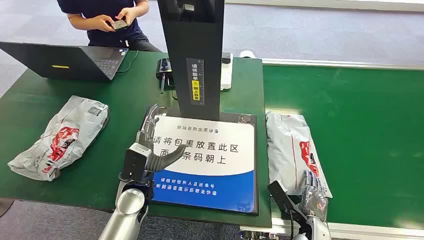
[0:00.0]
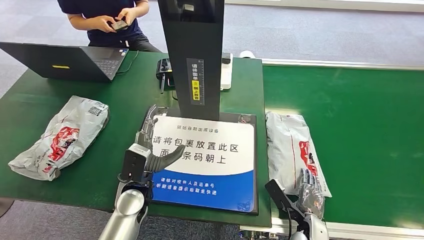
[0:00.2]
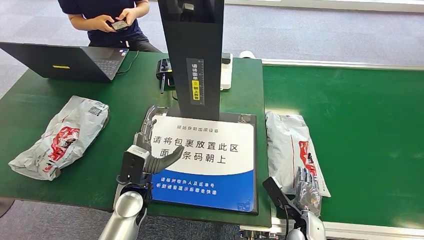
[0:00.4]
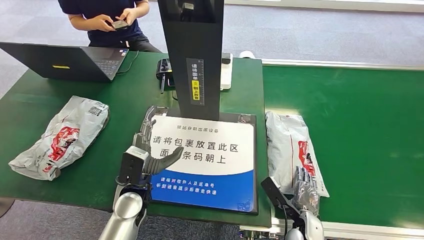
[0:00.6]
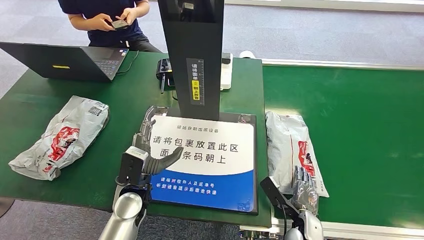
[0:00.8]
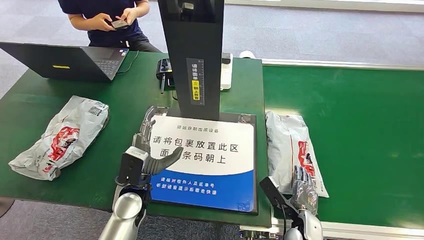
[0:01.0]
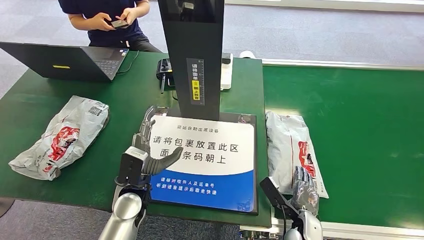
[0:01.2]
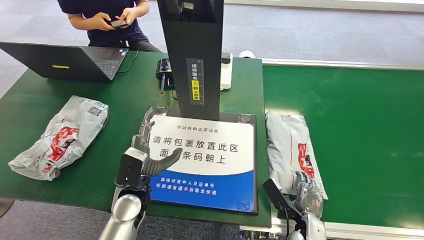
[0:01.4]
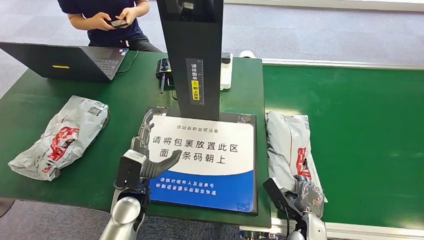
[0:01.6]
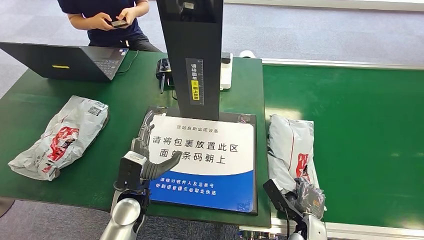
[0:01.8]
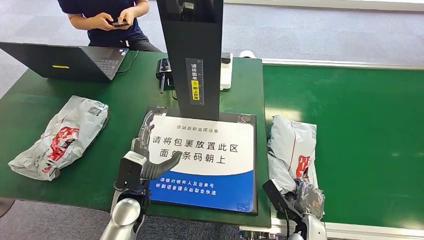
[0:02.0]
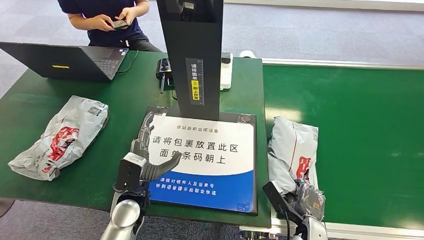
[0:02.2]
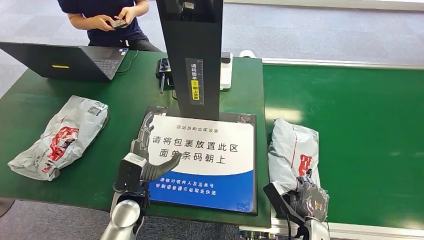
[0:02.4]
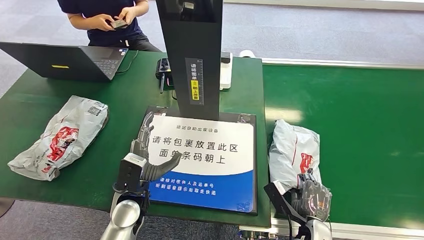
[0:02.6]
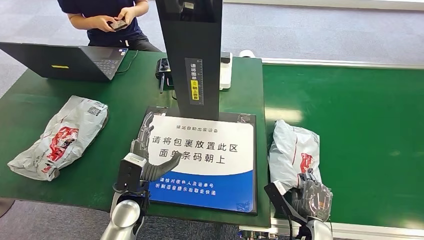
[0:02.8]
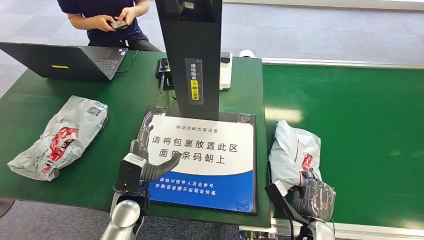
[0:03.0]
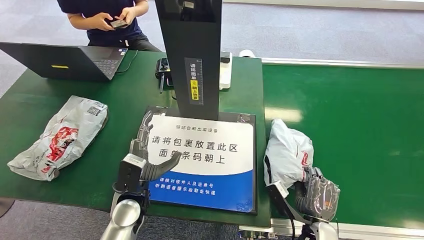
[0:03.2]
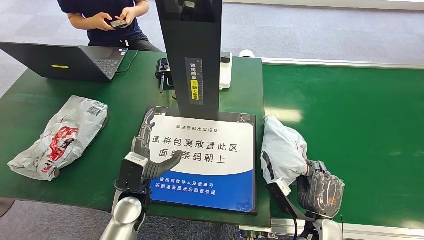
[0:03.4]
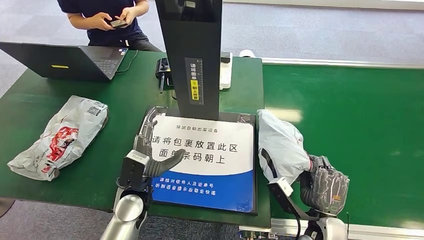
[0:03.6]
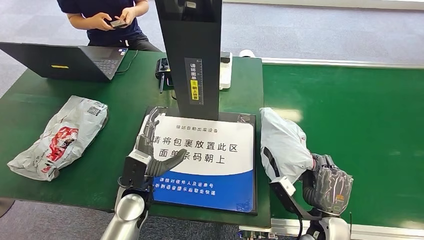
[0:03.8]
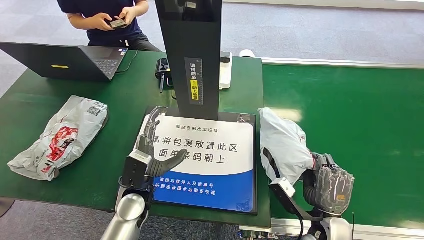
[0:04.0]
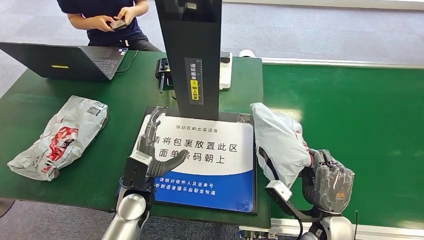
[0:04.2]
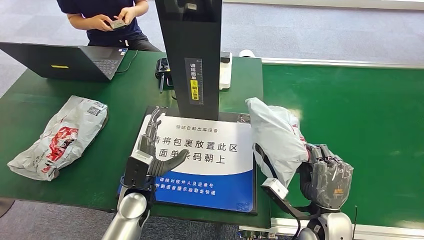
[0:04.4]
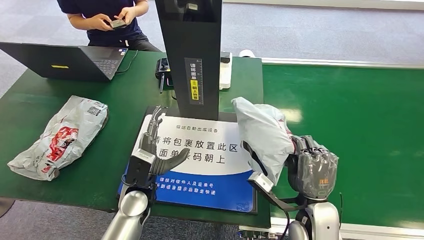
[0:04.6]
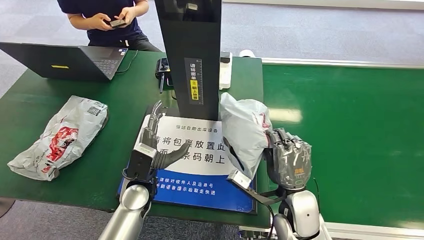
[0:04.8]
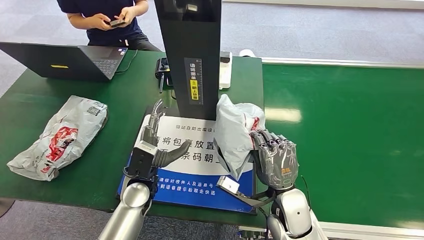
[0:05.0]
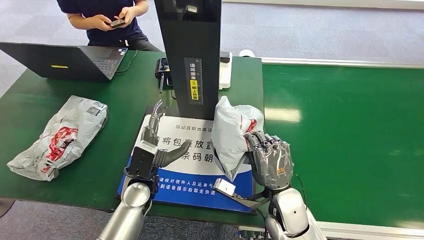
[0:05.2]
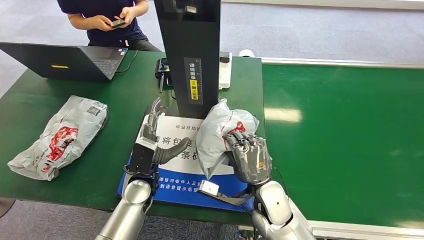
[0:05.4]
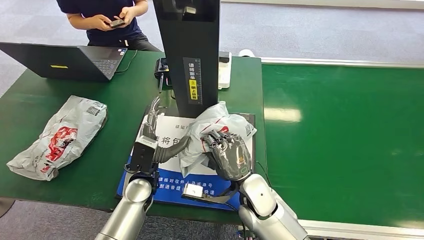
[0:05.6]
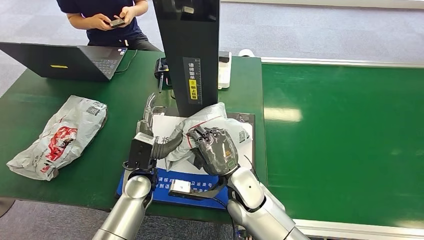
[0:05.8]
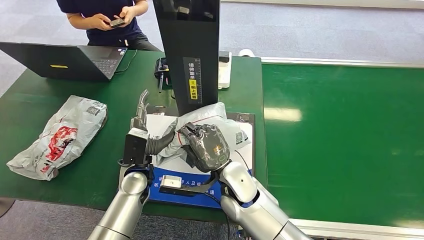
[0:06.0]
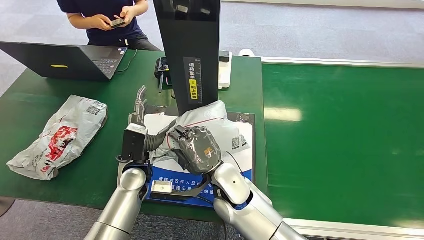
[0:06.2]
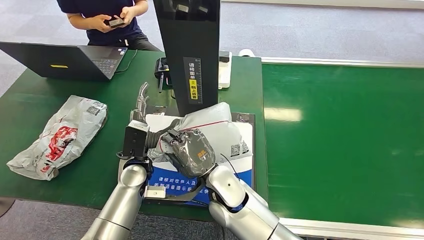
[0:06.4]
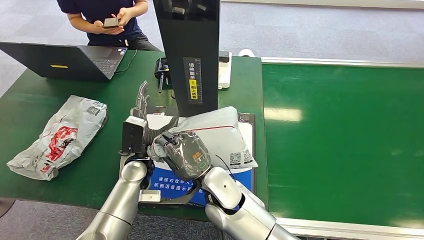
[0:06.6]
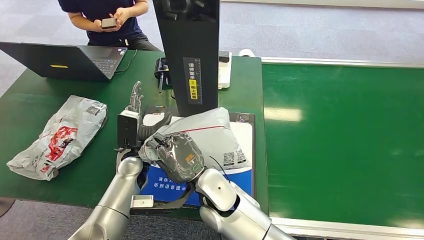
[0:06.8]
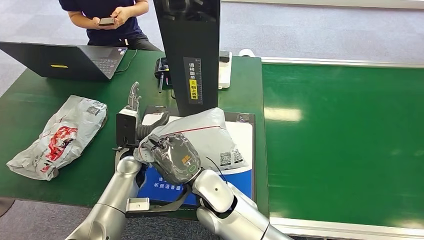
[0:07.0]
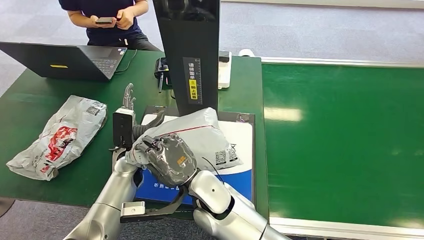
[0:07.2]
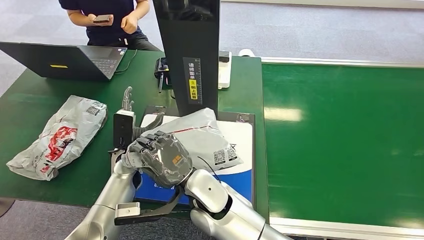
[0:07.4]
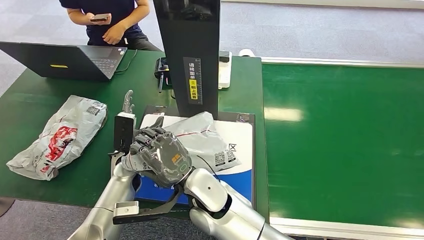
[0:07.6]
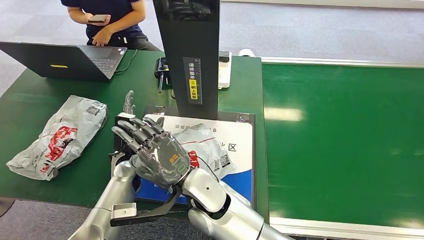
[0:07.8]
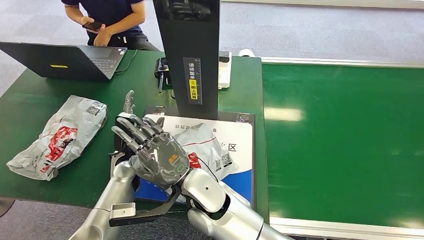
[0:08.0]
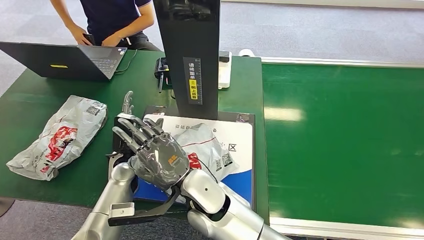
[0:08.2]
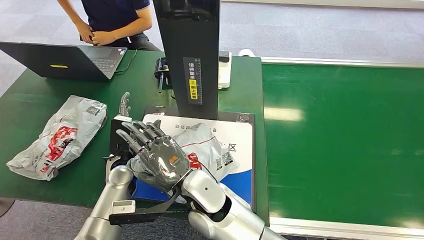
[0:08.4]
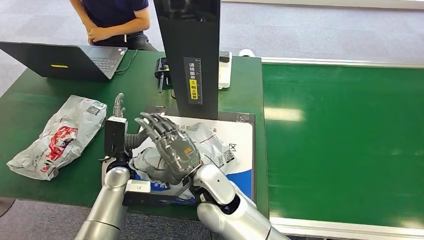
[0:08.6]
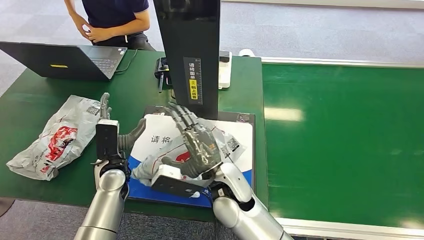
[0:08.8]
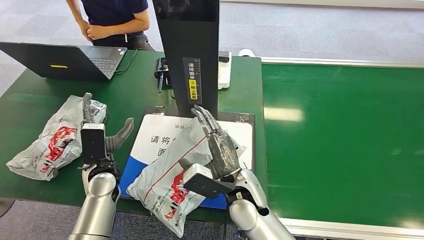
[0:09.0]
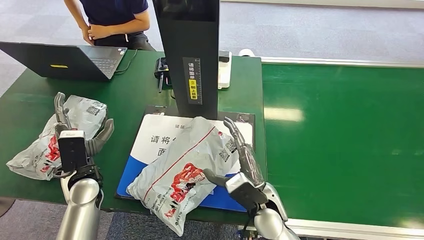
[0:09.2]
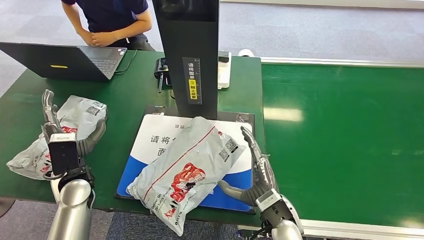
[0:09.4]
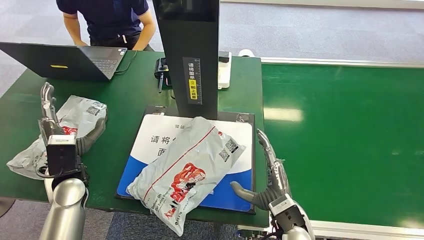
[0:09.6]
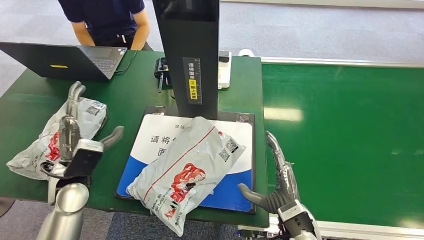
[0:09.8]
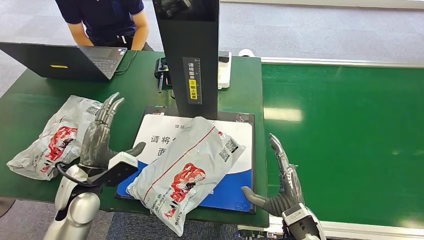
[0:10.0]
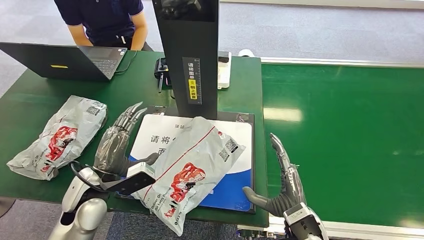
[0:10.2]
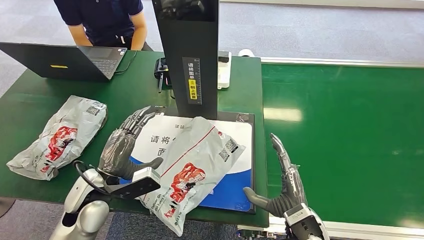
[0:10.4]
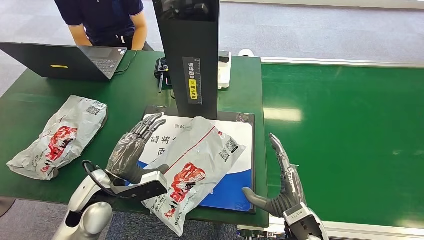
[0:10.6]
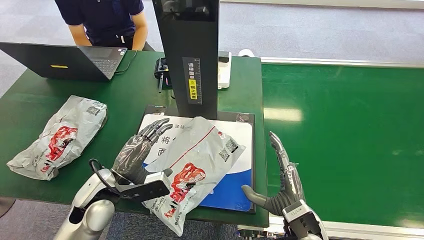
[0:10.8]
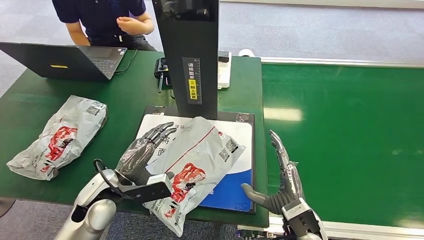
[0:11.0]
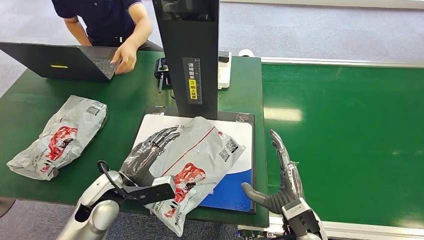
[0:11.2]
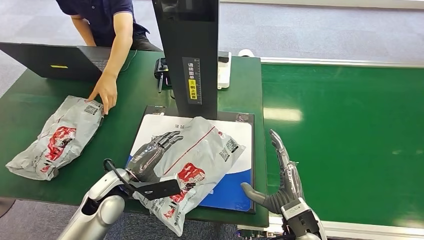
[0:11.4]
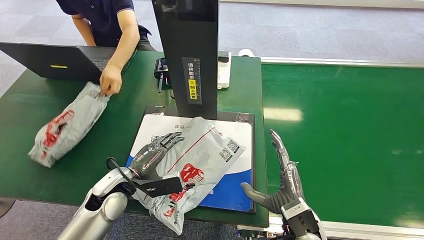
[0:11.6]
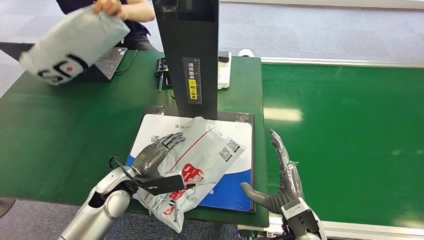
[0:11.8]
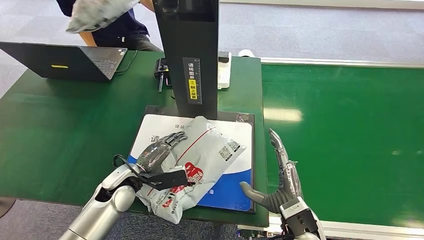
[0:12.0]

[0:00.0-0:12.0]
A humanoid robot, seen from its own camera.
Step, 0:00.0 to 0:03.6: Pick up the package from the conveyor belt.
Step, 0:03.8 to 0:09.8: Place the package onto the inbound machine.
0:01.6 to 0:03.0: There are only small adjustments of the hands.
0:03.0 to 0:04.4: The right hand goes some 10 cm upward.
0:06.0 to 0:07.6: The right hand is displaced to the left by some 5 cm; the left hand ends up about 5 cm from where it was.
0:09.0 to 0:10.4: The right hand moves to the right and backward, some 15 cm, while the left hand changes place by about 5 cm.

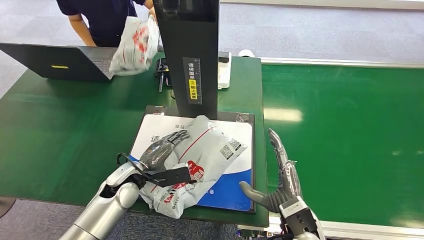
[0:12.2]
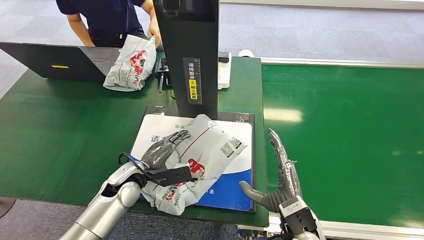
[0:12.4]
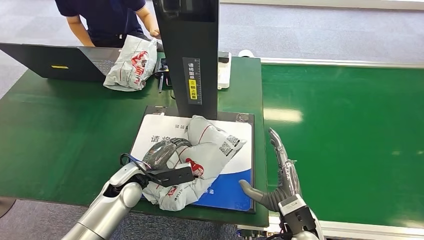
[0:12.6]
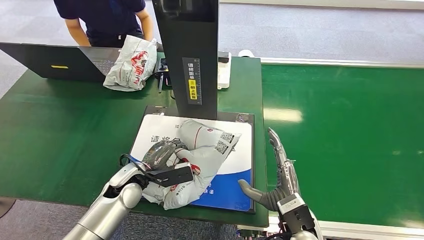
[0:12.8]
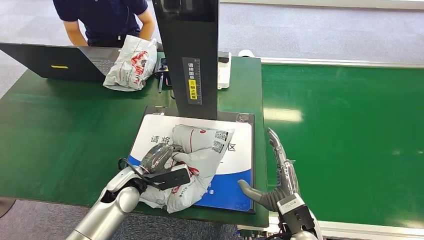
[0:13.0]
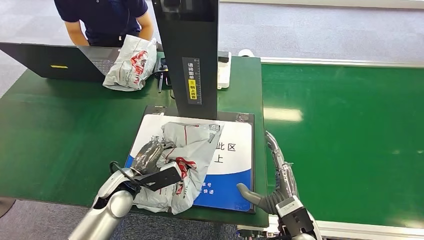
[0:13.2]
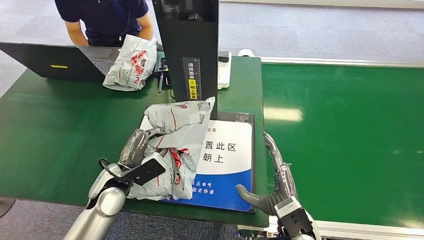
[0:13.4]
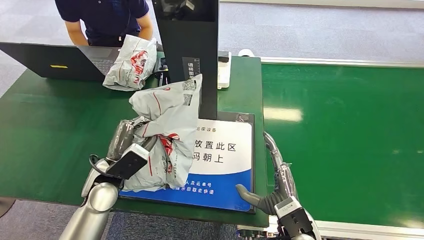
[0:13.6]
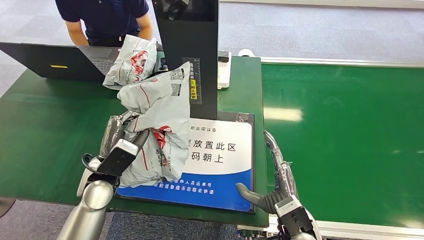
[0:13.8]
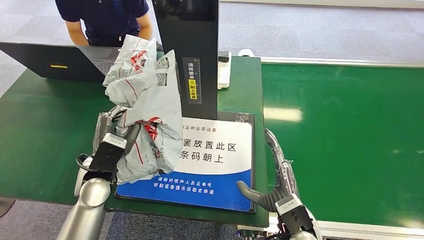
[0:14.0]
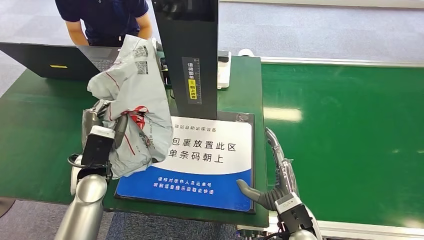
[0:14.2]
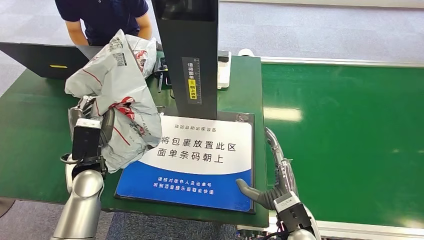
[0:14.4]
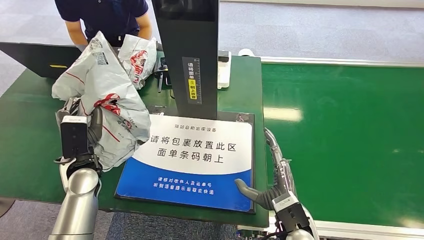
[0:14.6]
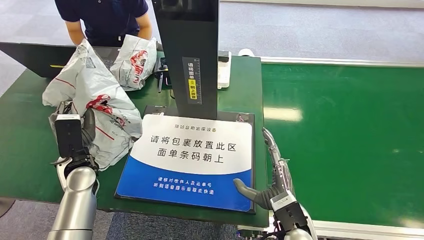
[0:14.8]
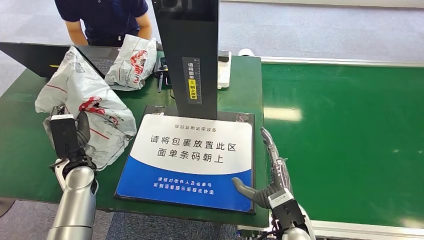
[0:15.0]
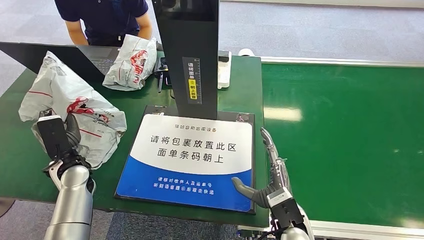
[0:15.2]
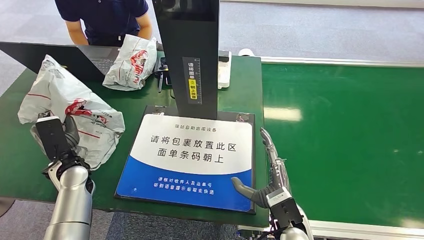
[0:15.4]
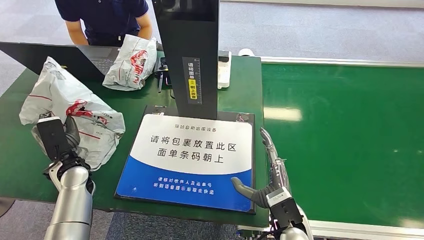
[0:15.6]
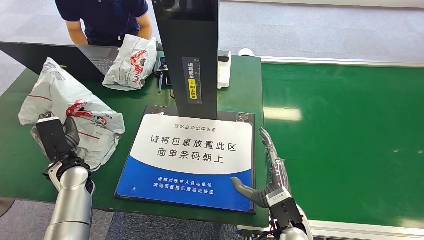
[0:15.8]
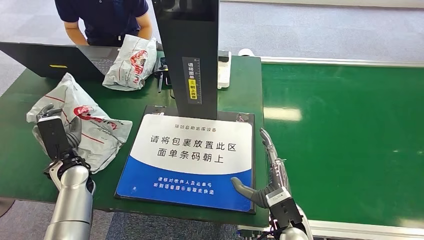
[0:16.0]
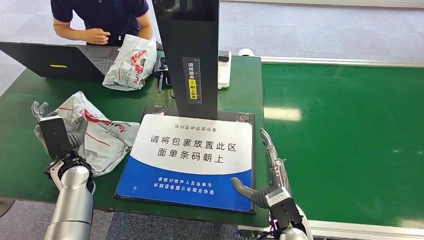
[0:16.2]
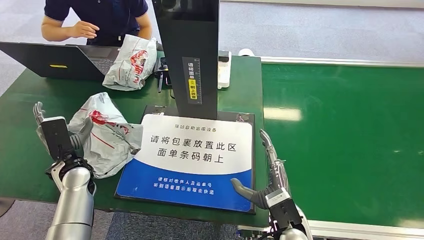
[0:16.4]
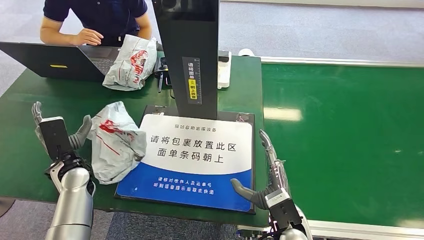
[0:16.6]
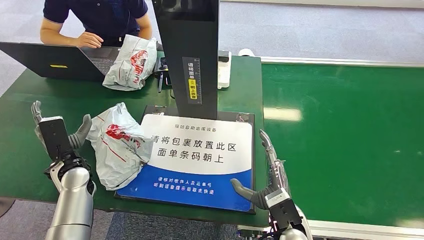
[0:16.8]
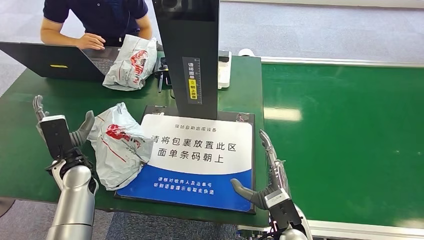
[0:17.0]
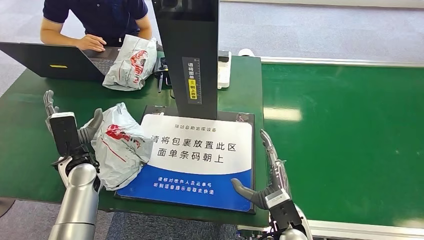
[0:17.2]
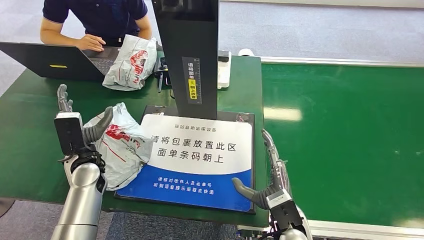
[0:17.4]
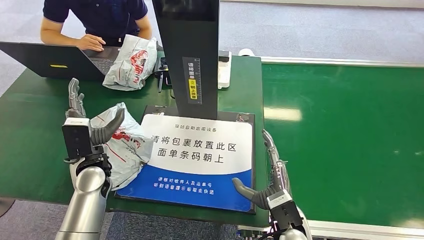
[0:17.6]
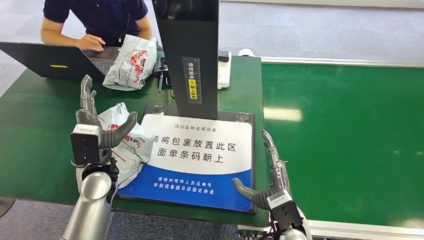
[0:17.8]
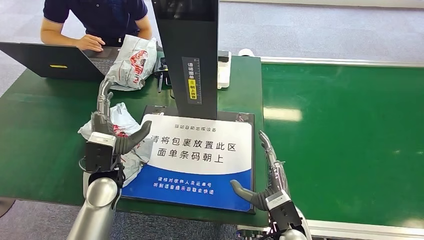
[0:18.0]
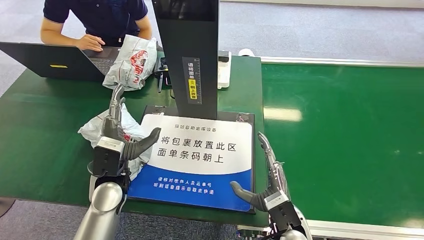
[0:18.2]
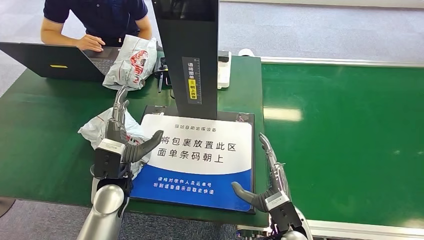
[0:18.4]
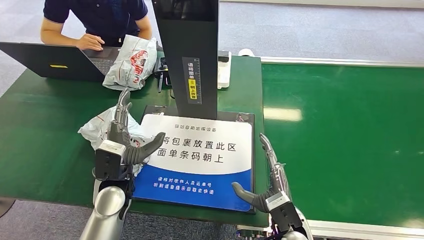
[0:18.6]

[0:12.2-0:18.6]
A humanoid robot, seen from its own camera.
Step, 0:14.0 to 0:18.6: Place the package into the parcel locker.
0:15.4 to 0:17.0: Neither hand changes place.
0:17.0 to 0:18.6: The left hand travels to the right by some 15 cm.
